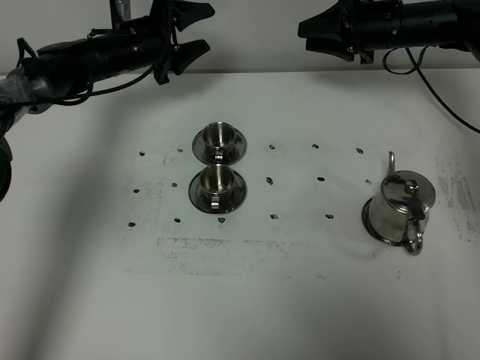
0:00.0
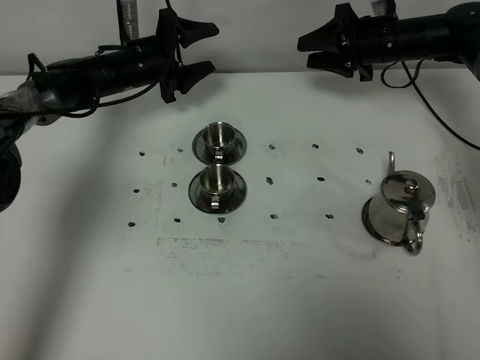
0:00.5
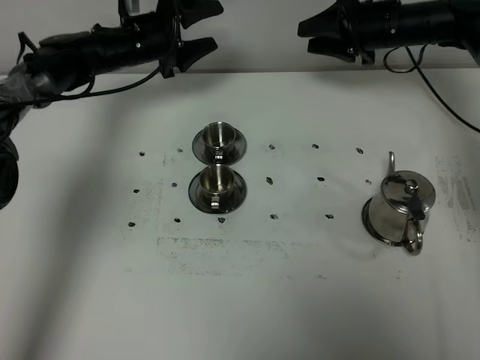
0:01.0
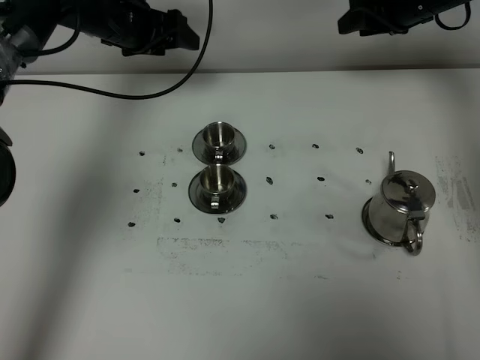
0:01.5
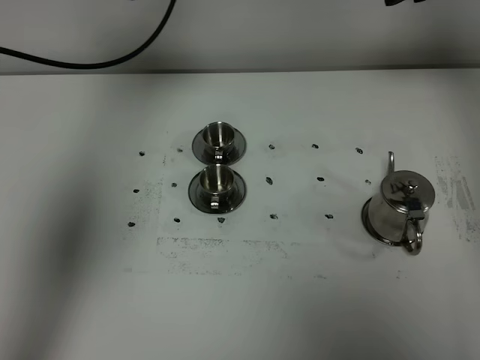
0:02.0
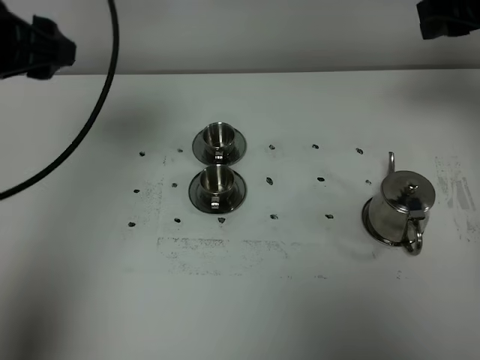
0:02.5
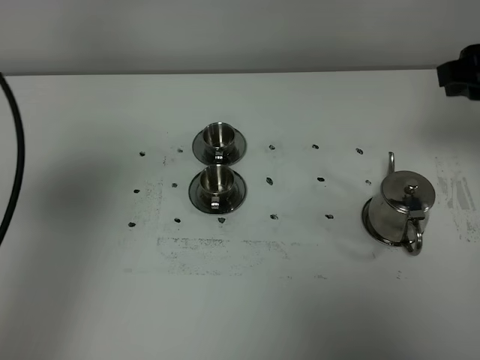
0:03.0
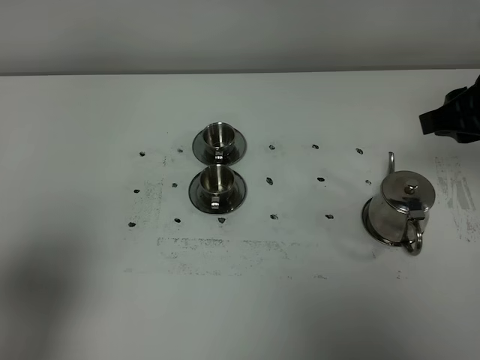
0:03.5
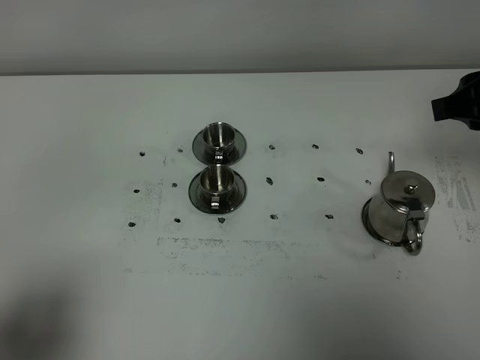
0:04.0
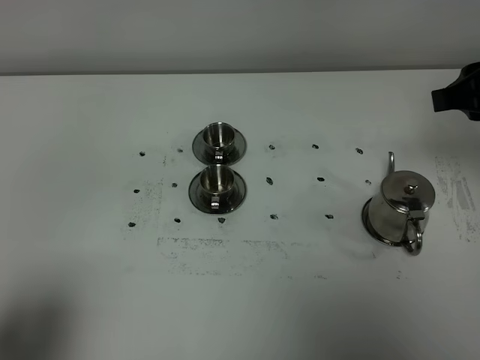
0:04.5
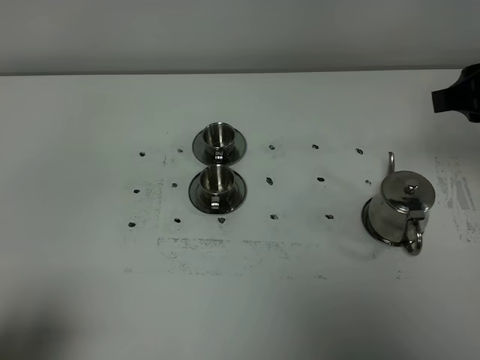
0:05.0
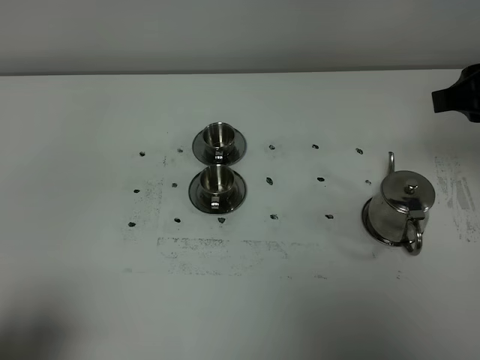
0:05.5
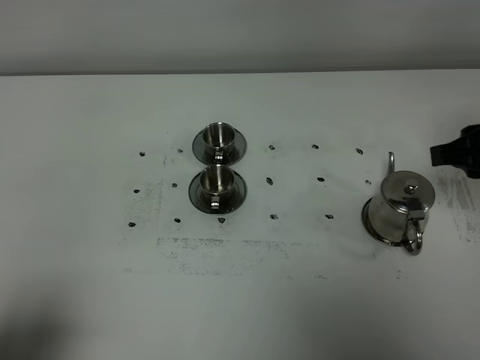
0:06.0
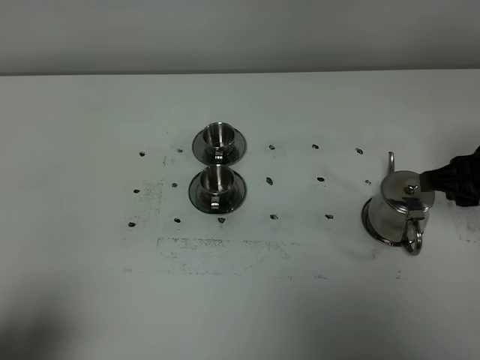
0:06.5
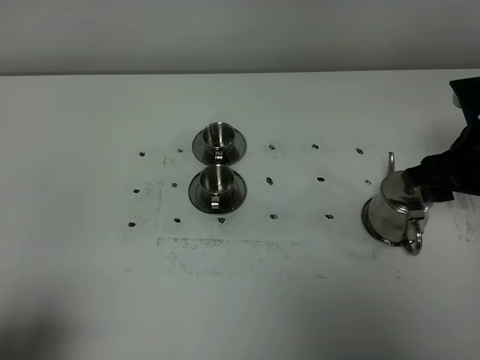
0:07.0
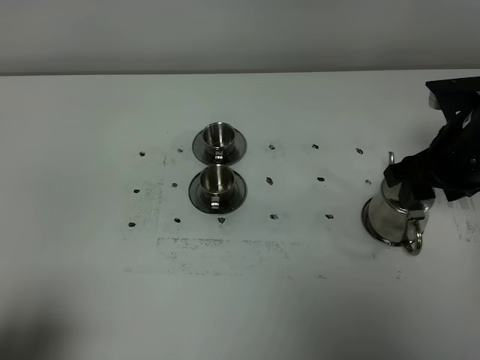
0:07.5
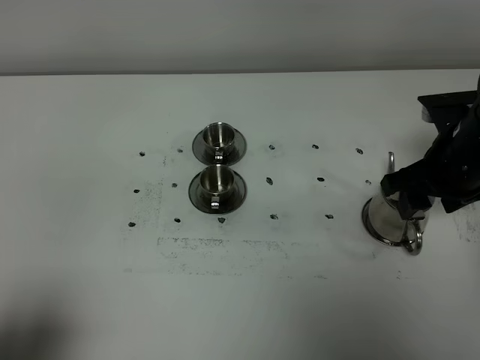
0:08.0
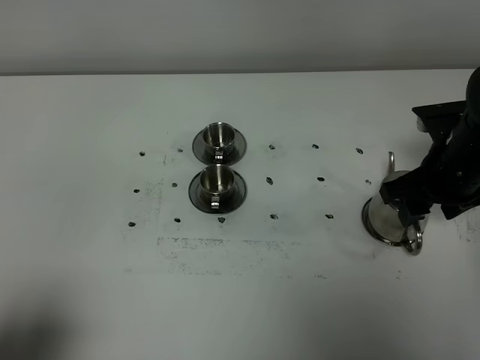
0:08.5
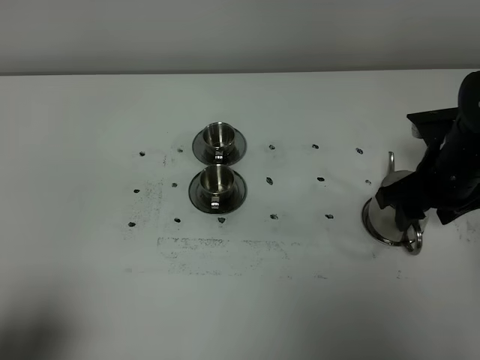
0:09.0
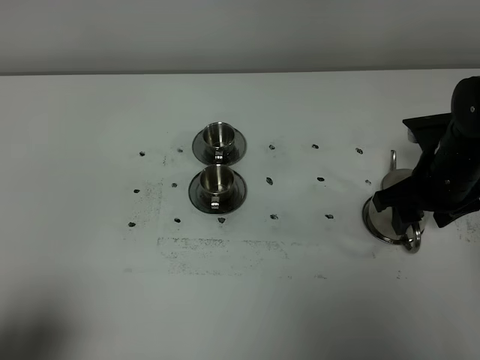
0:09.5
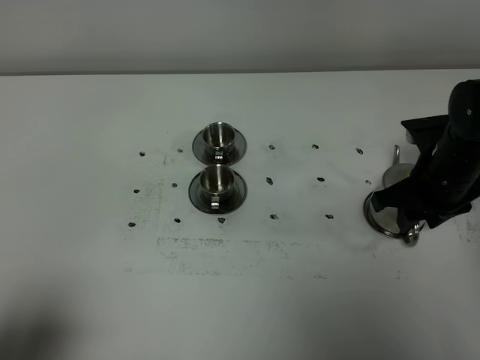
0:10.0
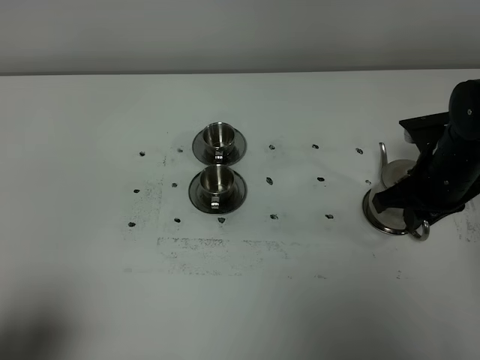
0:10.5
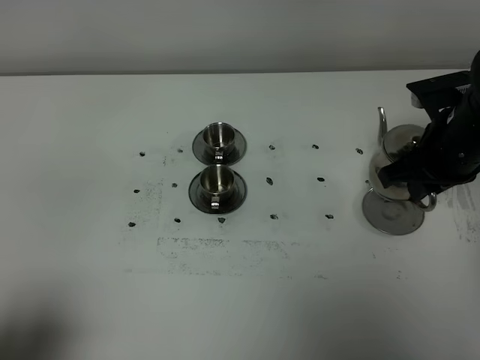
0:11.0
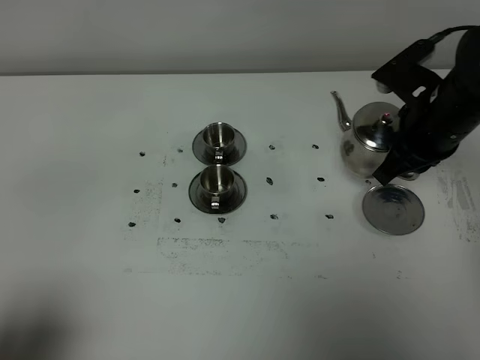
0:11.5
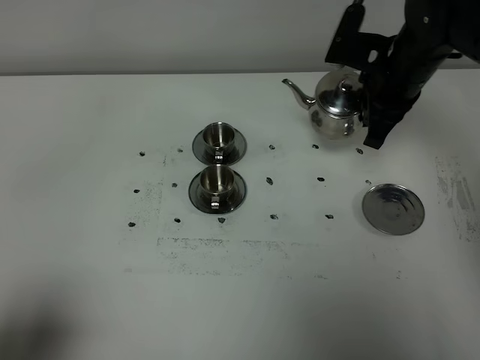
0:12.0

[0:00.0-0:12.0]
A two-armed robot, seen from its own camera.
Task of the whole recording: grasp the stainless steel teapot and pour the tea into the two stainless steel teacups one by one, put the stainless steel teapot back in its original place.
Step, 0:00.0 to 0:10.5: Pick up the teapot with the right gripper.
0:00.0 to 0:02.0: Both grippers move upward and backward, roughly 20 cm.
0:02.0 to 0:04.0: The left gripper moves backward, approximately 40 cm, while the right gripper shifts approximately 20 cm backward.
0:04.0 to 0:06.0: The right gripper heads downward, covering approximately 5 cm.
0:06.0 to 0:08.0: The right gripper is displaced downward and forward by some 10 cm, and opens.
0:08.0 to 0:10.0: The right gripper closes its fingers.
0:10.0 to 0:12.0: The right gripper is displaced forward, upward and to the left by about 15 cm, and closes its fingers.

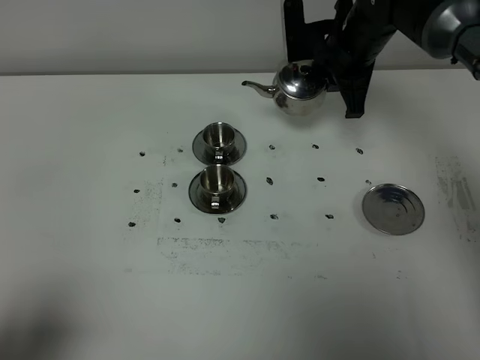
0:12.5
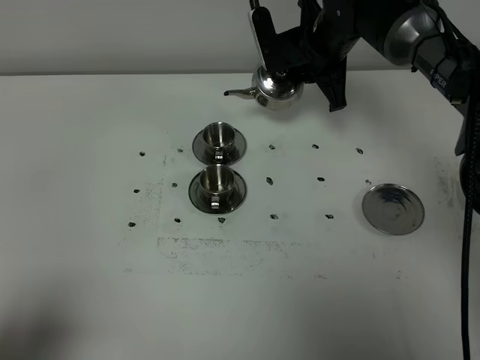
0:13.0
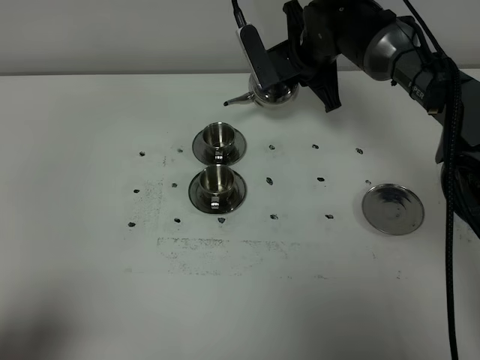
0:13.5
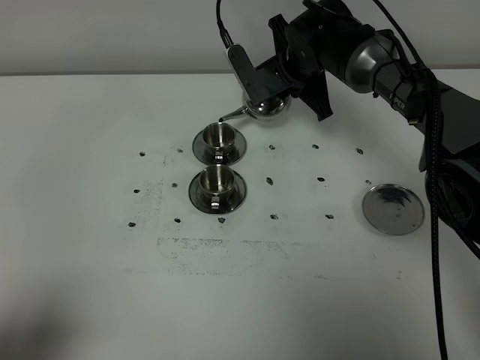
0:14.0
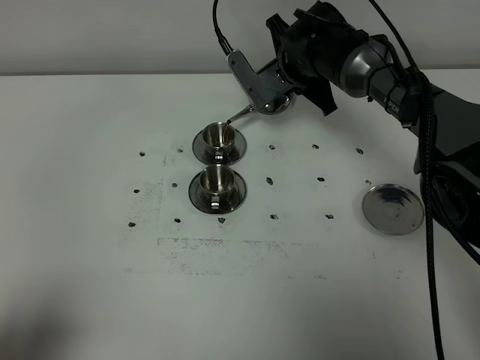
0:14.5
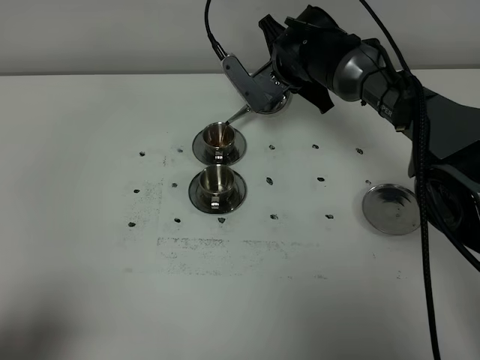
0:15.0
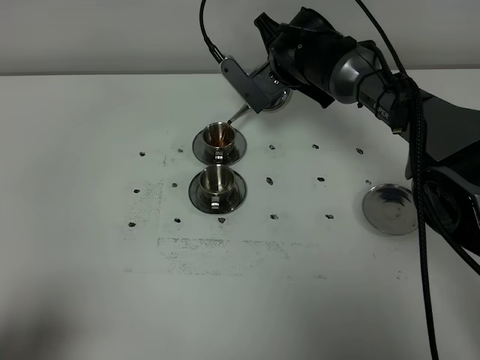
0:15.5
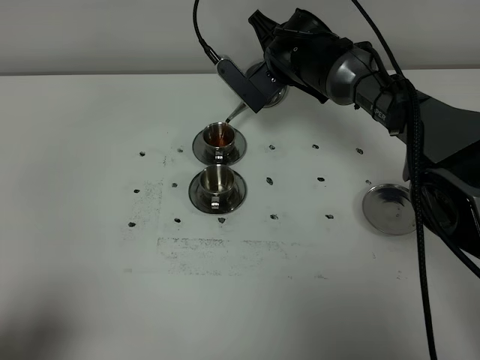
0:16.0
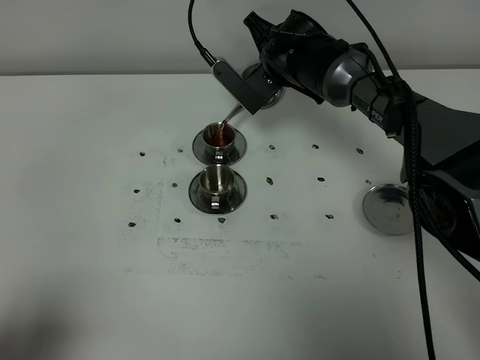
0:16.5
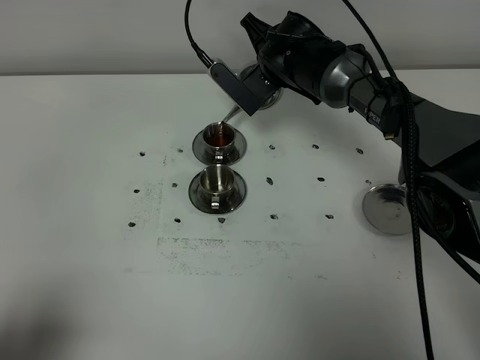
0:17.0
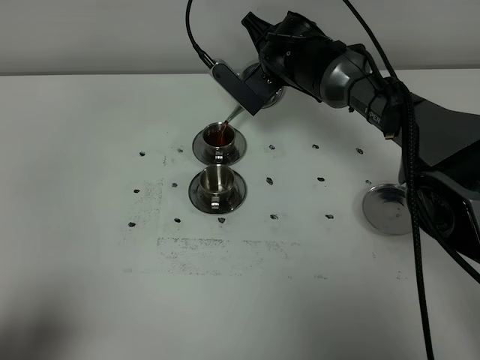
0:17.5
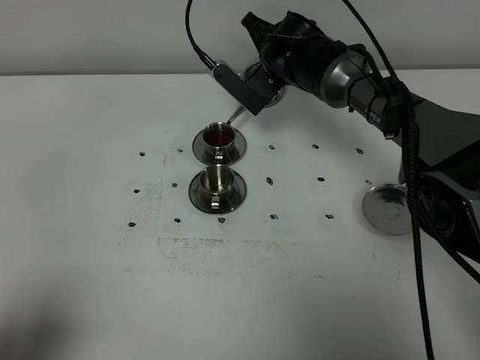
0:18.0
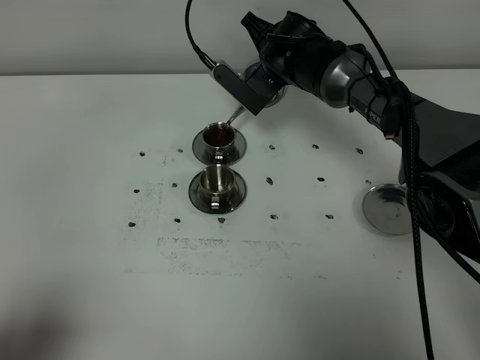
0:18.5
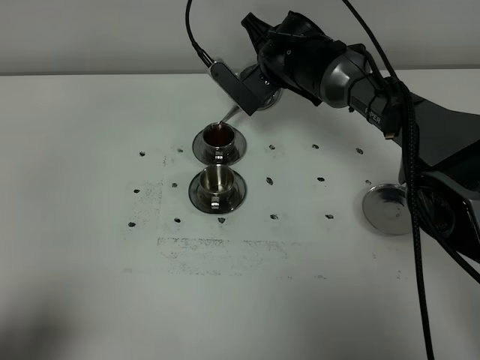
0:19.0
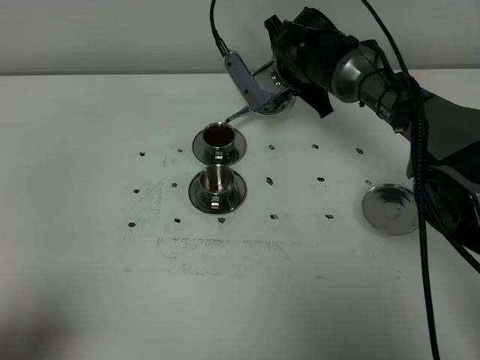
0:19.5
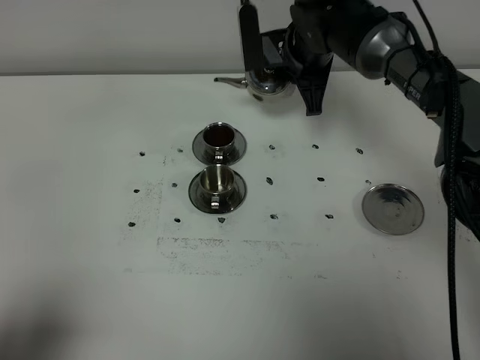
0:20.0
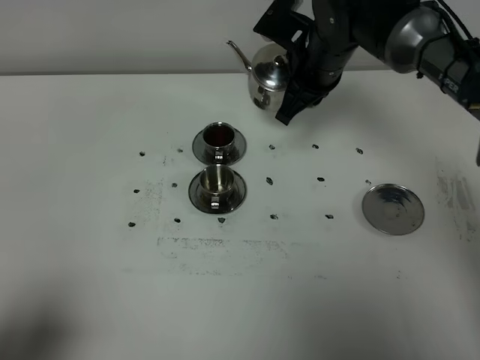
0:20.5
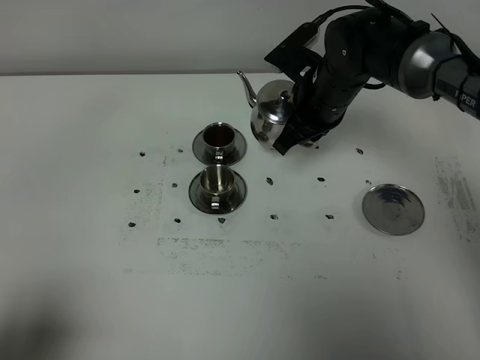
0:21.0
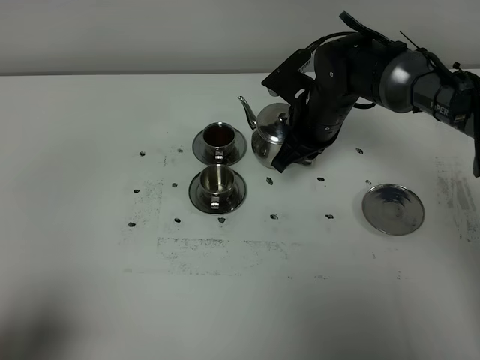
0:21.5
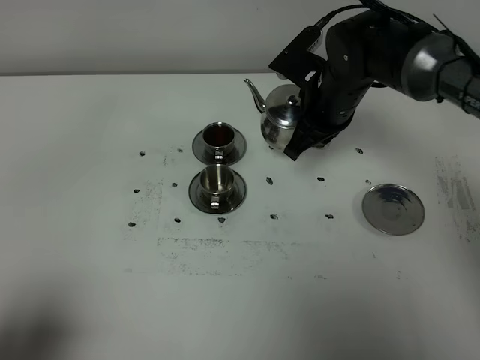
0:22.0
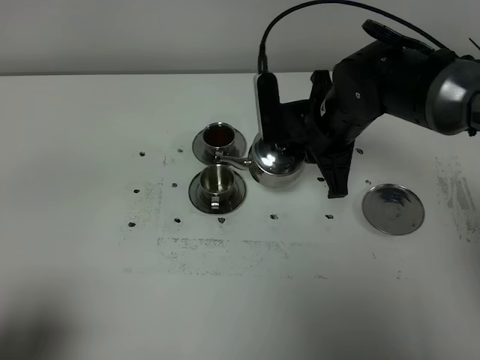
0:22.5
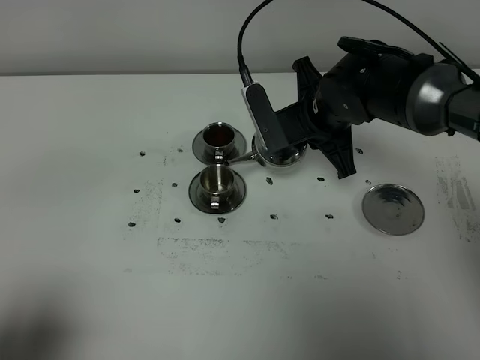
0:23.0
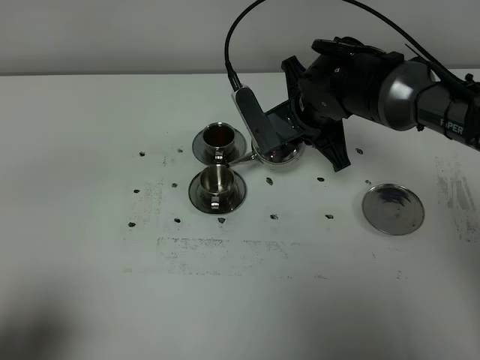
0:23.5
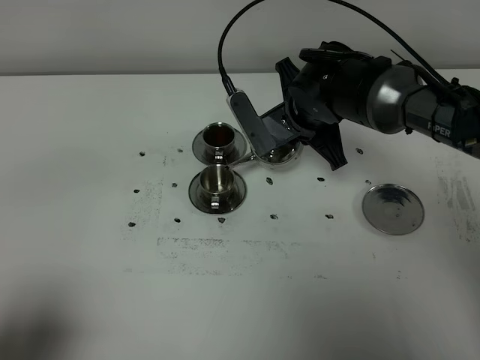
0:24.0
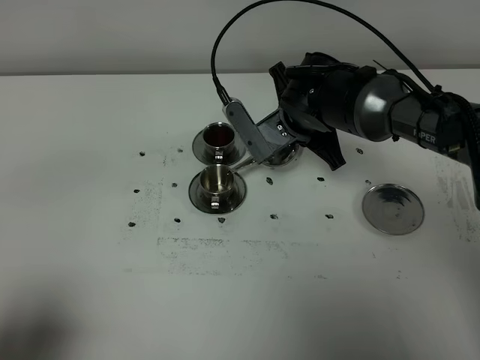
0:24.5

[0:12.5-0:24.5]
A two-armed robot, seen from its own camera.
Task of the whole recording: grasp the stainless steel teapot and pour the tea into the two stainless steel teacups one by one, put the stainless steel teapot back in its original place.
0:12.5 to 0:14.5: The right gripper shifts about 10 cm to the left and downward.
0:14.5 to 0:16.5: The grippers move only a little.
0:16.5 to 0:18.5: The two grippers keep their place.
0:18.5 to 0:20.5: The right gripper shifts some 5 cm backward.
0:20.5 to 0:22.5: The right gripper is displaced backward by some 10 cm.
0:22.5 to 0:24.5: The right gripper moves approximately 5 cm.

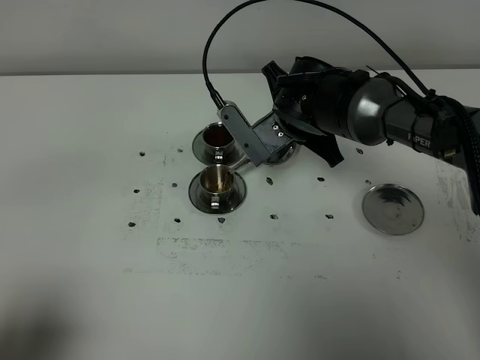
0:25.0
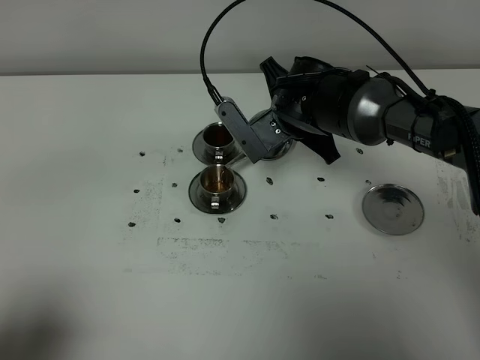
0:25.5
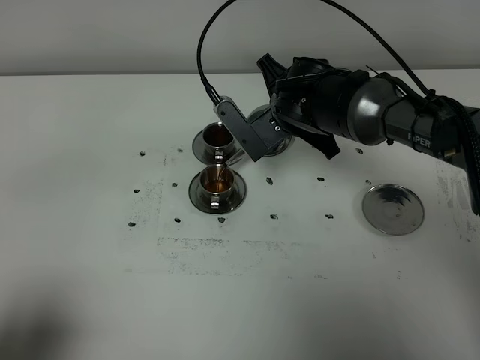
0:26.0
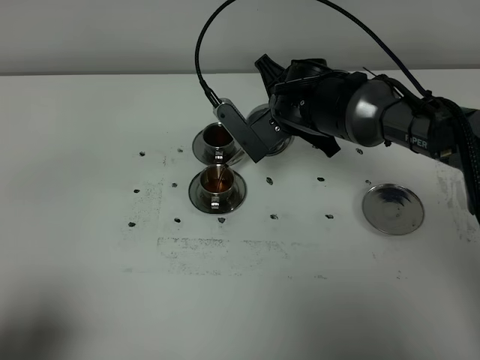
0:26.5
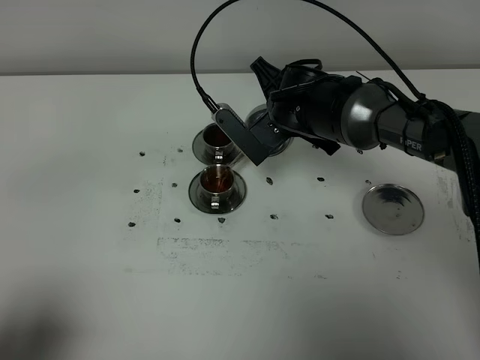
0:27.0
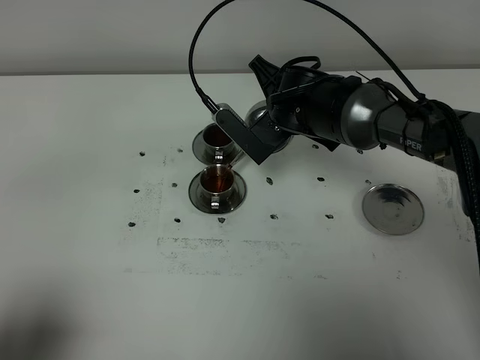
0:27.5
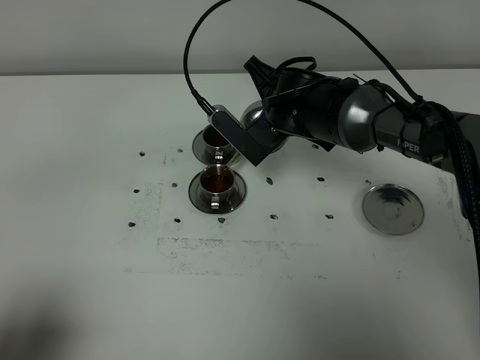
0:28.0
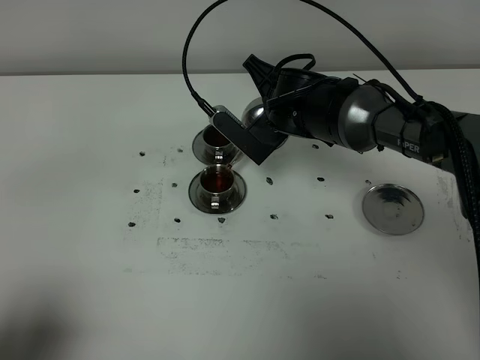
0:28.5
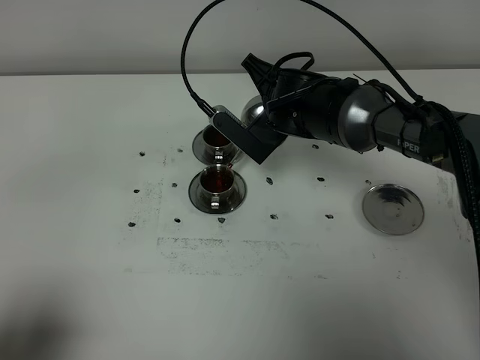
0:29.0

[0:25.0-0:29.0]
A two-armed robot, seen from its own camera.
Task of the whole recording: grasp the stainless steel teapot and pour the tea into the two stainless steel teacups one by one, put the stainless steel teapot back in its original place.
0:25.0 to 0:29.0: There are only small adjustments of the grippers.
